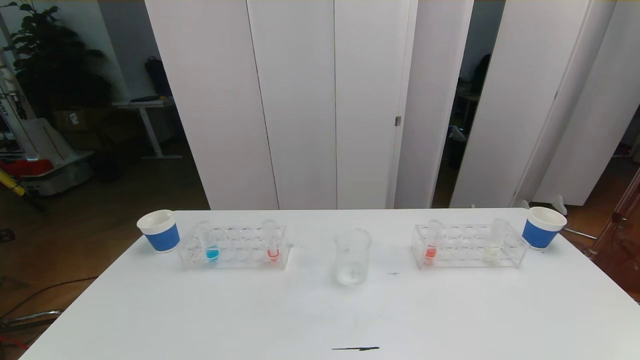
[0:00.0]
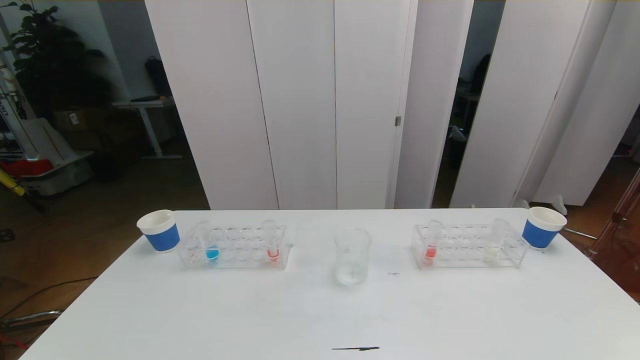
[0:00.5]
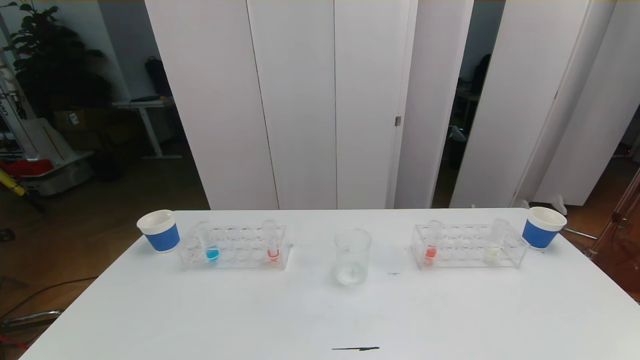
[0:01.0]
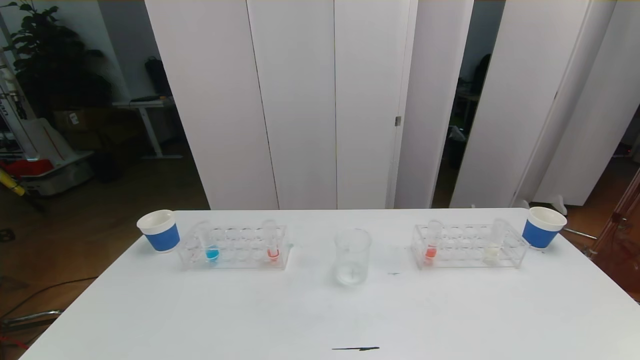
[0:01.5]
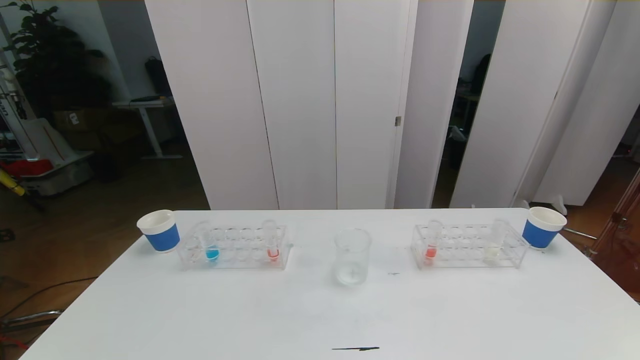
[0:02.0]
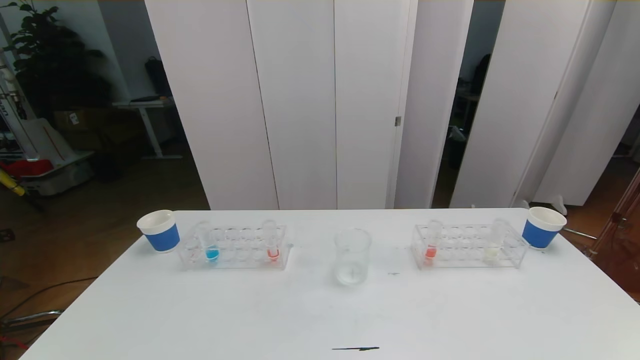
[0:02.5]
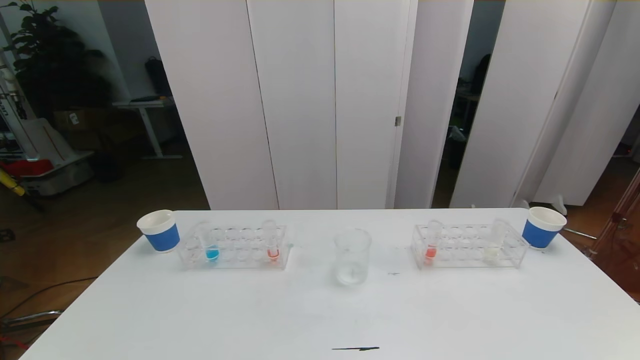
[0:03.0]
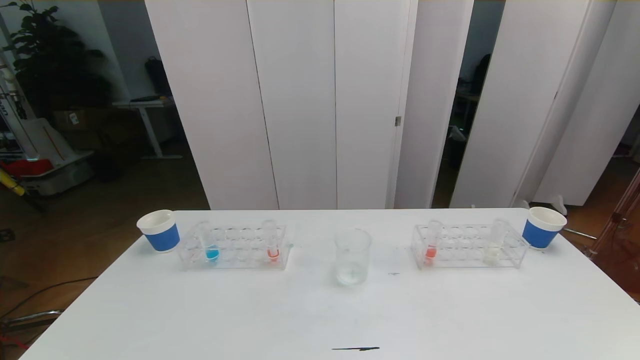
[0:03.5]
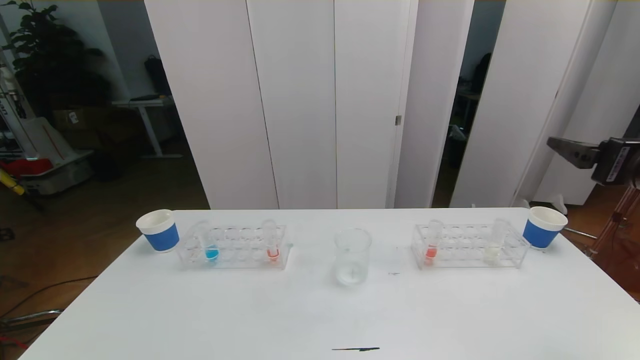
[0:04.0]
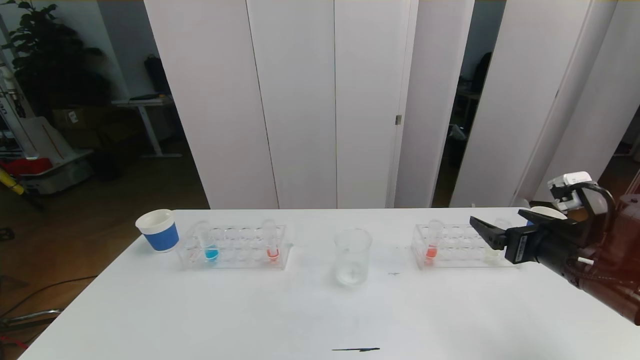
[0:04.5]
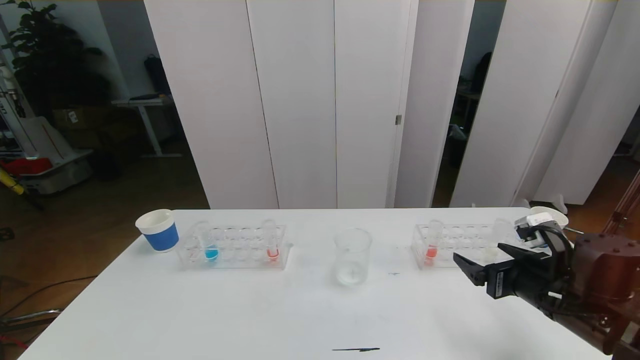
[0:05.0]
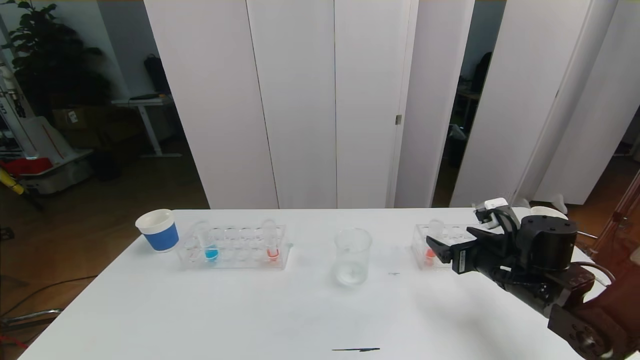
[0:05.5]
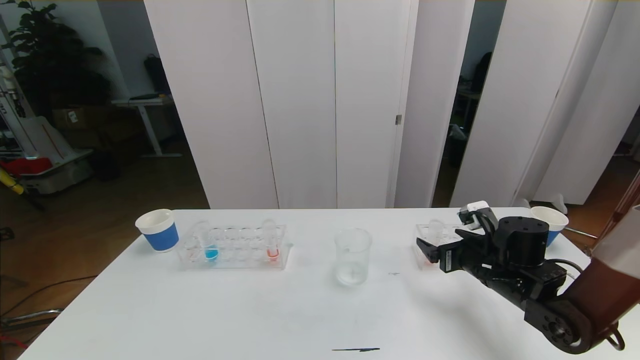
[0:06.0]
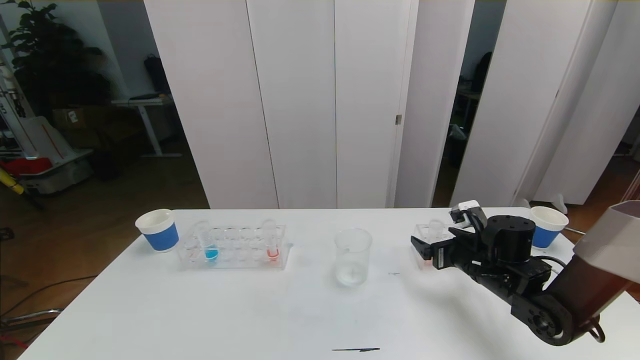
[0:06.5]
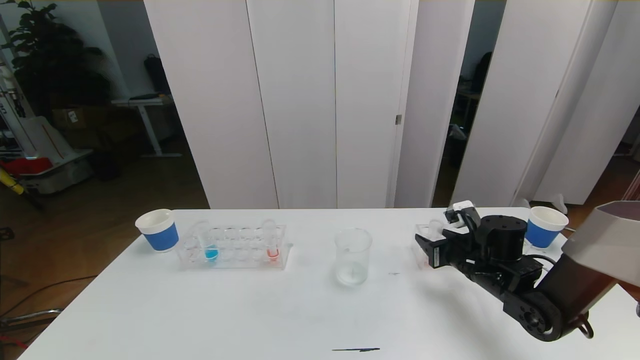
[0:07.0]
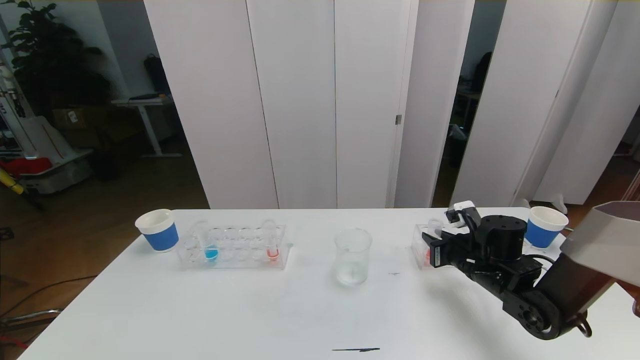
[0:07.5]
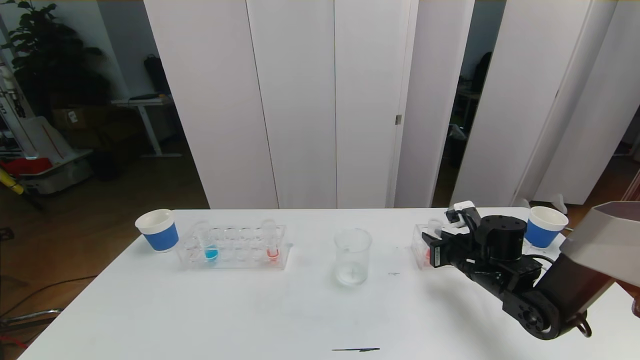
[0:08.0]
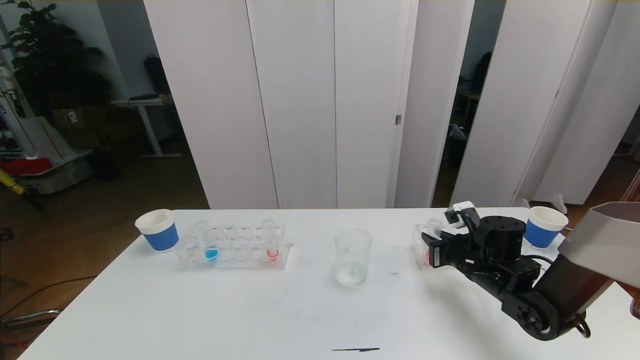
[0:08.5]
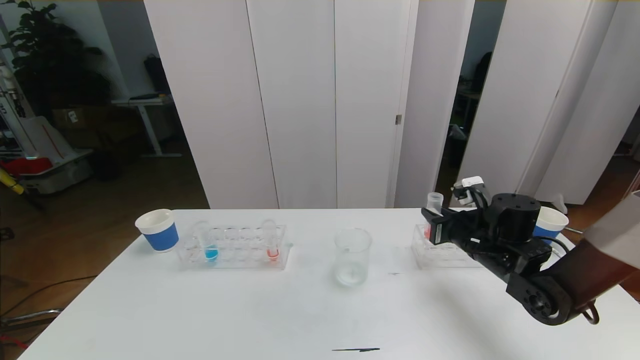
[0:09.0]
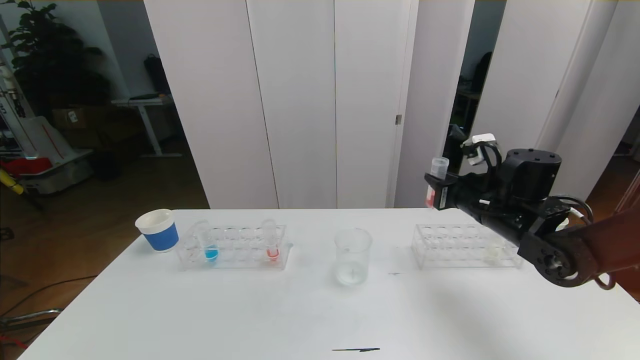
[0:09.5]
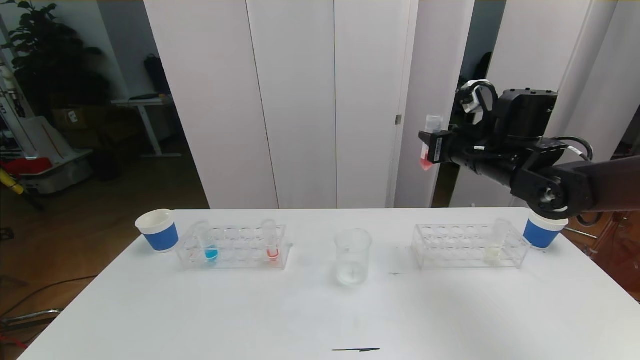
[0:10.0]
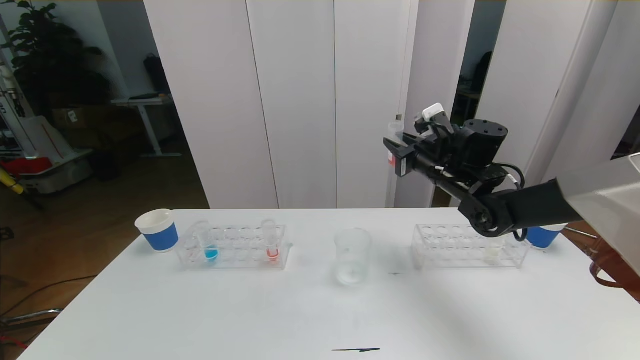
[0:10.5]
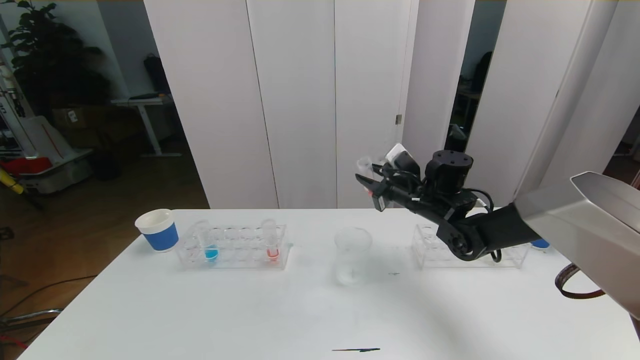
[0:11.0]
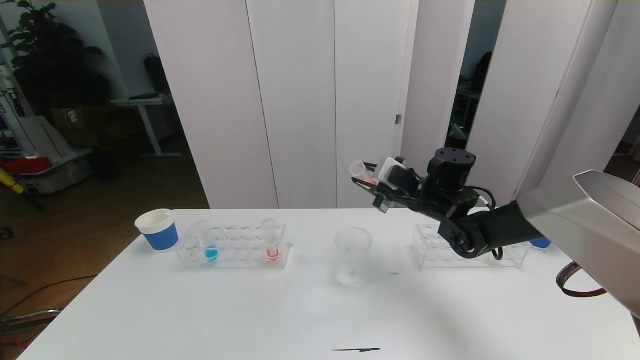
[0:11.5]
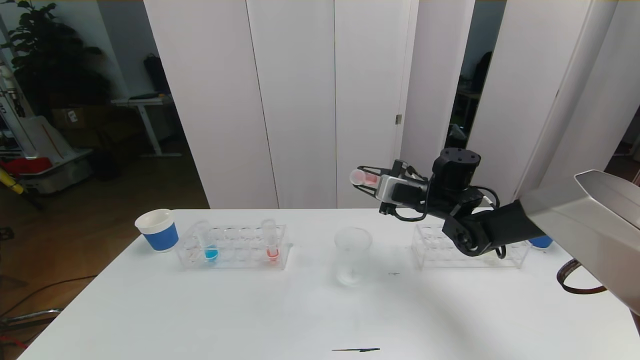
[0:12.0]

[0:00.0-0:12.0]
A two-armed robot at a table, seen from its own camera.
Task of the whole recording: pick up the test tube with red pigment the test tube with blue pigment and the test tube with white pigment by grippers and pour them into the beaker.
0:00.0 to 0:02.0: Both grippers stay about where they are.
0:02.0 to 0:04.0: The right gripper travels forward and upward by approximately 30 cm.
0:04.0 to 0:06.0: The right gripper goes approximately 25 cm downward, forward and to the left.
0:06.0 to 0:08.0: The right gripper closes up.
0:08.0 to 0:10.0: The right gripper travels upward by roughly 20 cm.
0:10.0 to 0:12.0: The right gripper shifts about 10 cm downward and to the left.

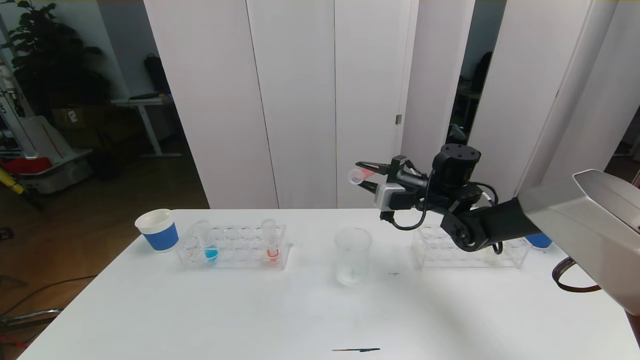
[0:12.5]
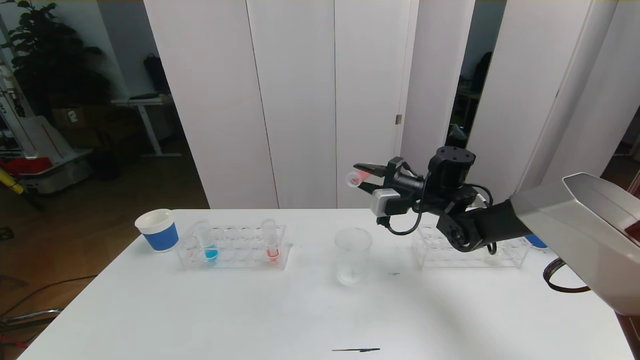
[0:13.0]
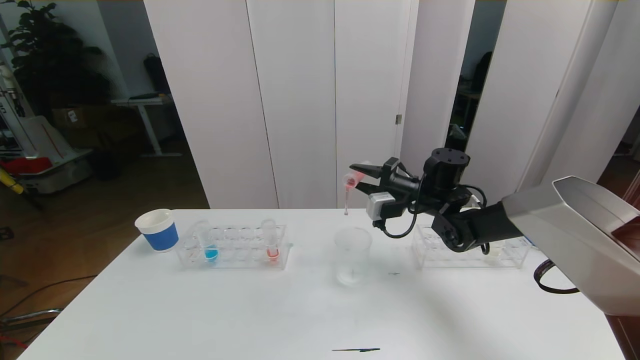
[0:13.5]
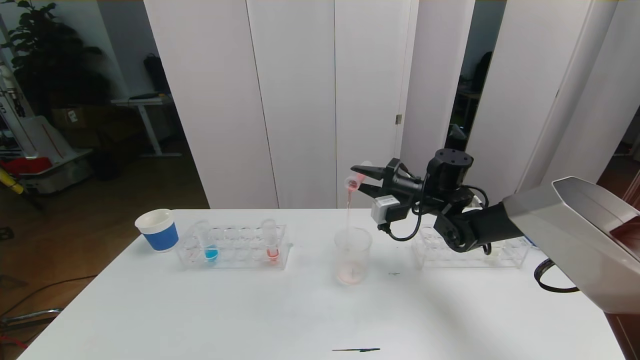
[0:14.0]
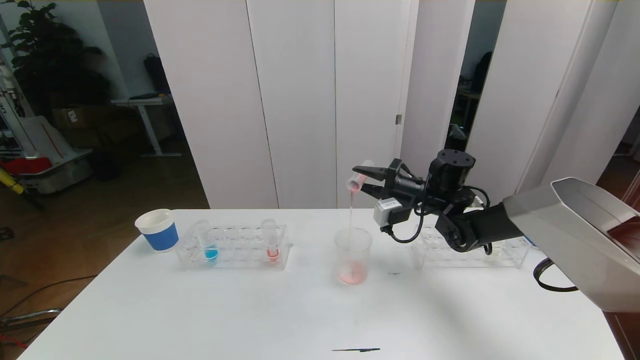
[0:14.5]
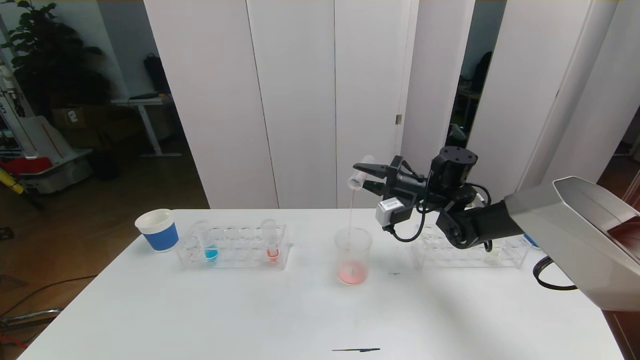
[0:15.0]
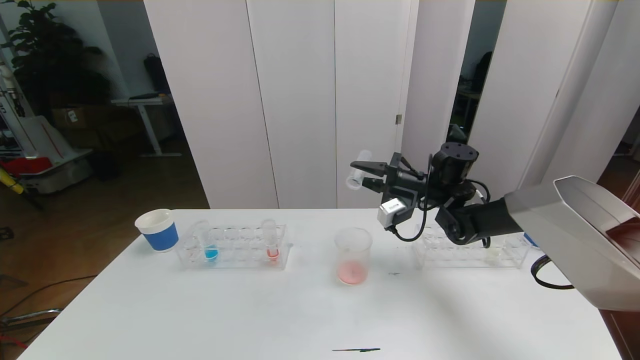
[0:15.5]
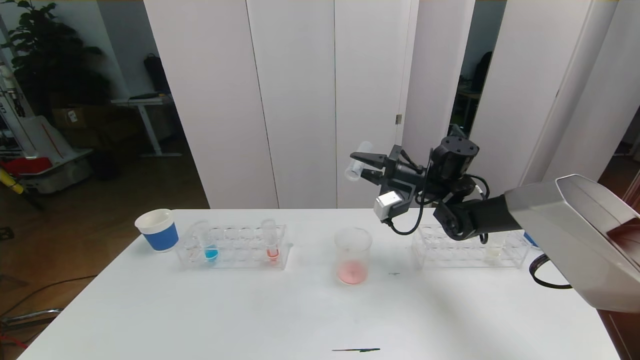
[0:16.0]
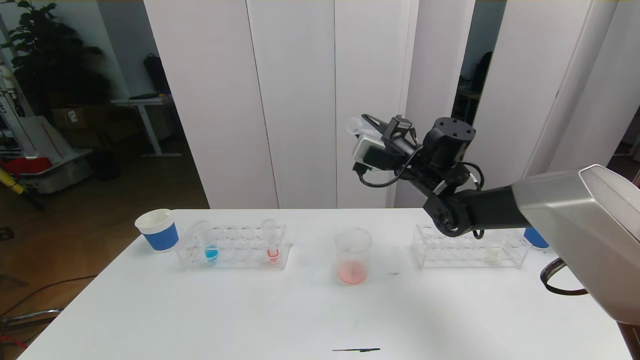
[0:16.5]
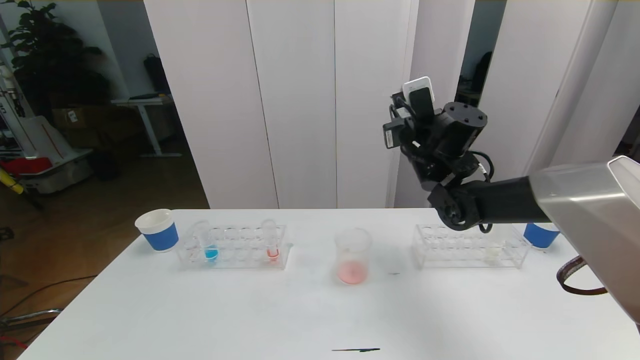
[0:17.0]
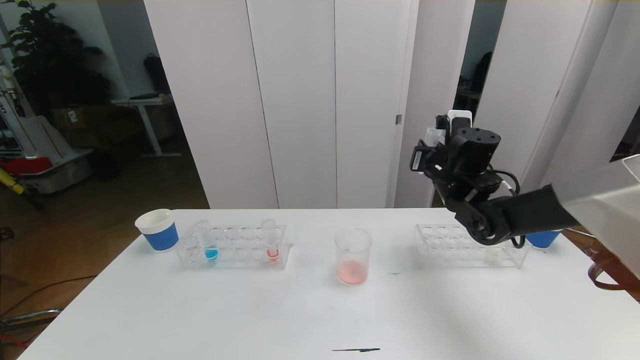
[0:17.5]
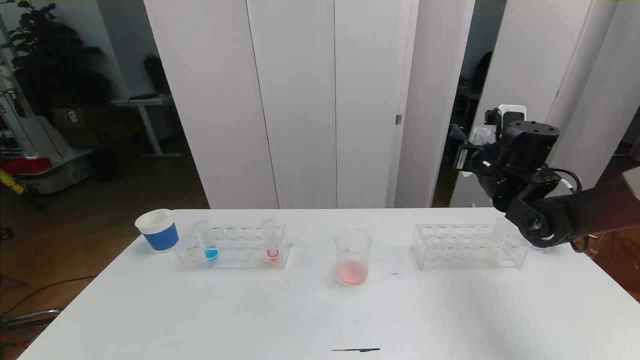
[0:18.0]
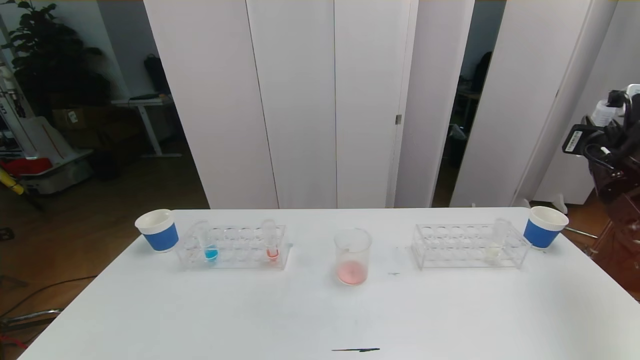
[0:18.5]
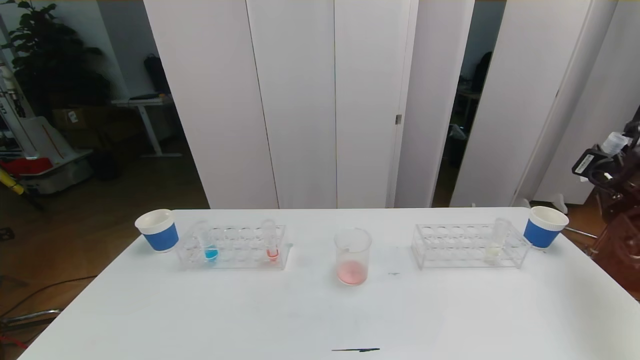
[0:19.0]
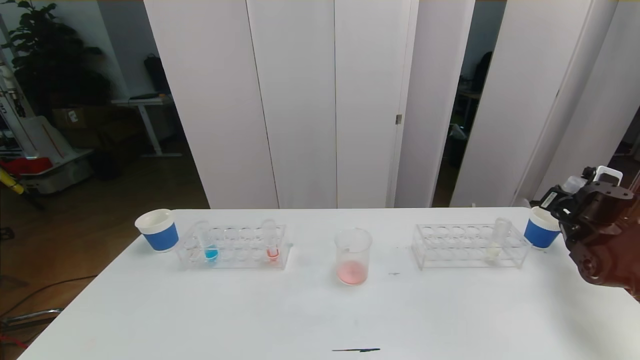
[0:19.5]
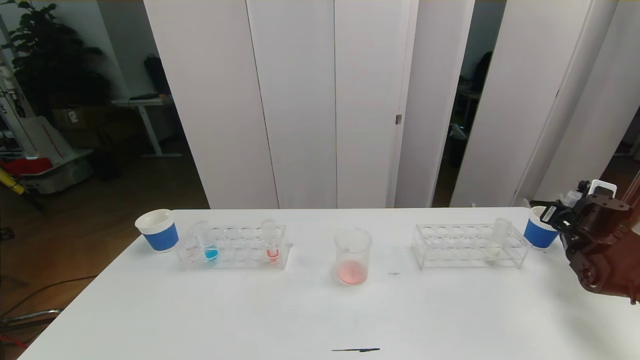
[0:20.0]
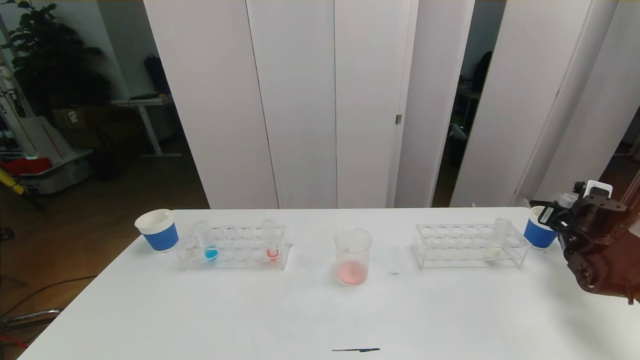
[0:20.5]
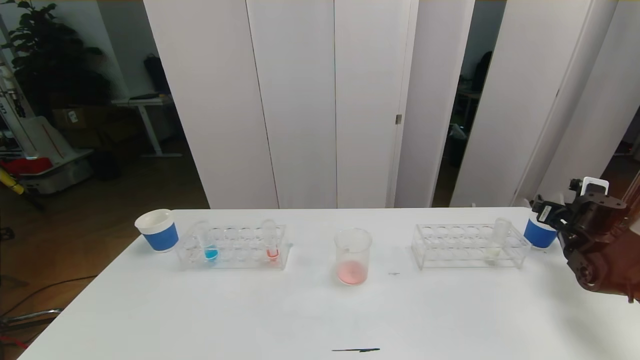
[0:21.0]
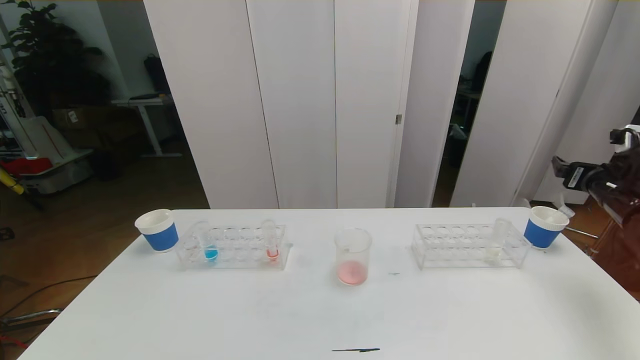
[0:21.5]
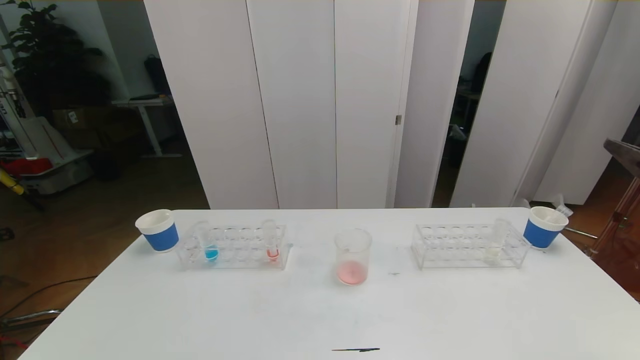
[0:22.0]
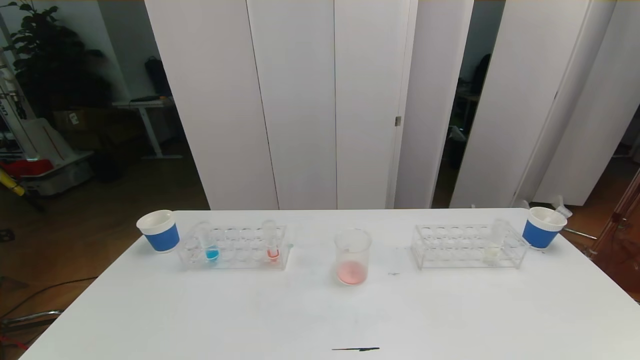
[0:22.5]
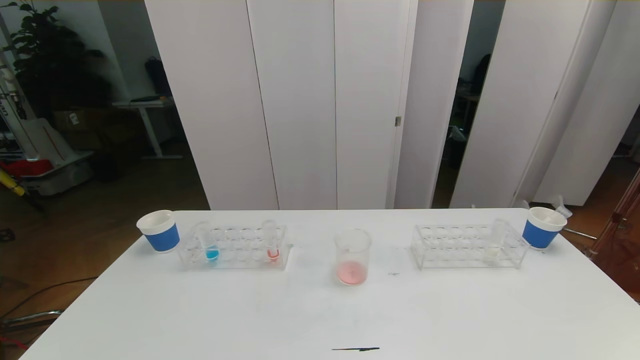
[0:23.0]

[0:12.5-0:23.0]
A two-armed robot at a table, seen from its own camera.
Task of the whole recording: pick up the test tube with red pigment the test tube with blue pigment and the test tube with white pigment by grippers and pour them into the beaker.
0:12.5 to 0:14.5: The grippers move only a little.
0:14.5 to 0:16.5: The right gripper moves upward, some 5 cm.
0:16.5 to 0:19.0: The right gripper is displaced to the right by about 30 cm.
0:19.0 to 0:21.0: The right gripper is displaced downward by approximately 10 cm, and opens up.
0:21.0 to 0:23.0: The right gripper travels backward by about 50 cm.
